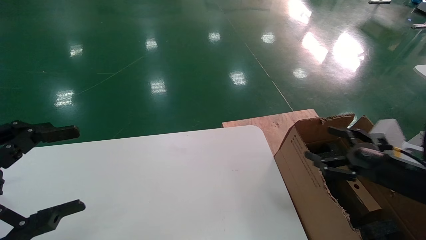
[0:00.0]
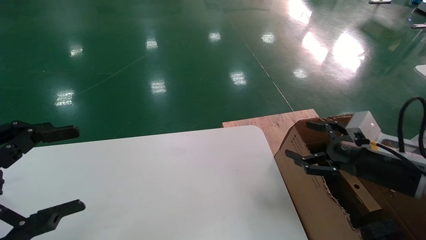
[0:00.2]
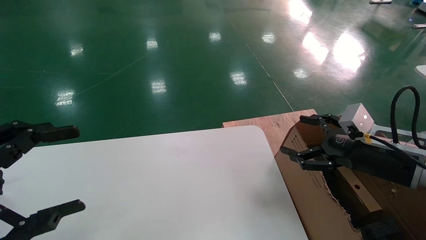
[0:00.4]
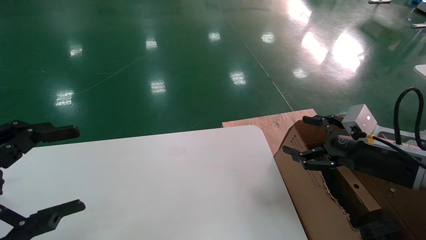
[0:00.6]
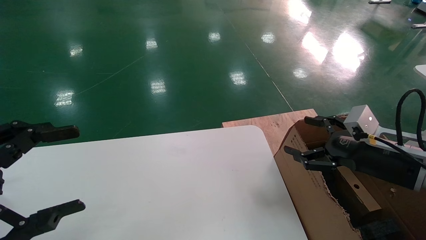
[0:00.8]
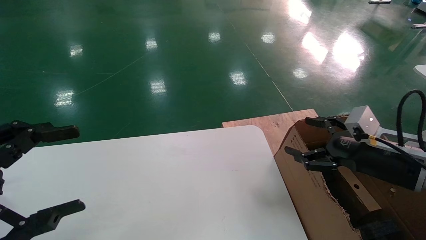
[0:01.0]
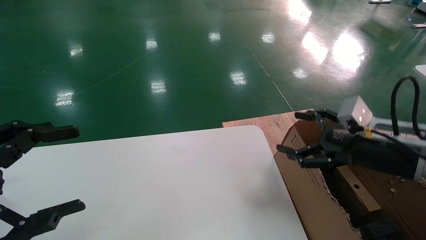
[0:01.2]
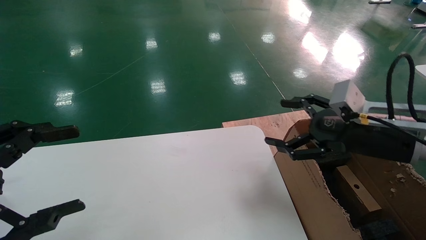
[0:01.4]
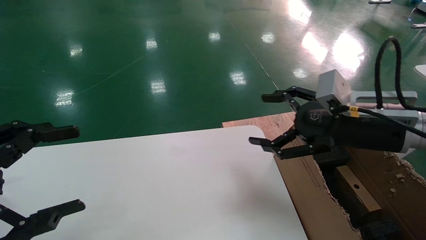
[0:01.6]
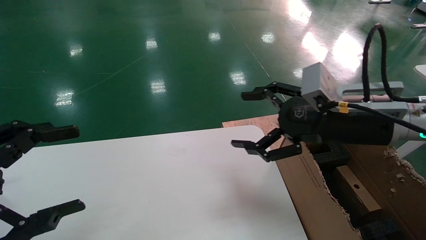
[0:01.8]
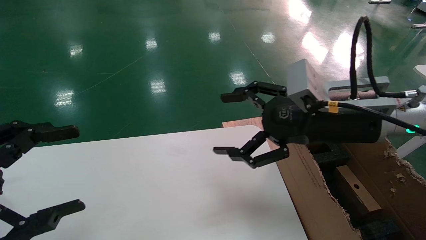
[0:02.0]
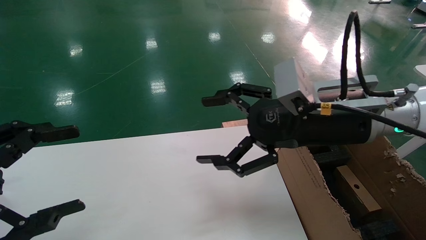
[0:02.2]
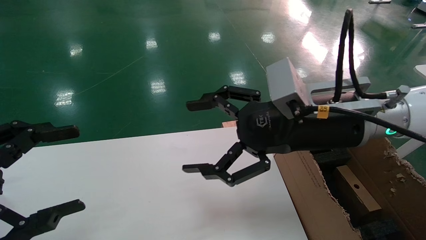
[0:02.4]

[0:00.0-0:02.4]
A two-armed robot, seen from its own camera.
Task of the whole recording: put the box on the table into the big box.
0:00.0 to 0:01.2: The right gripper is displaced upward and to the left by approximately 10 cm.
0:01.2 to 0:02.4: The right gripper heads to the left and upward, covering about 15 cm.
